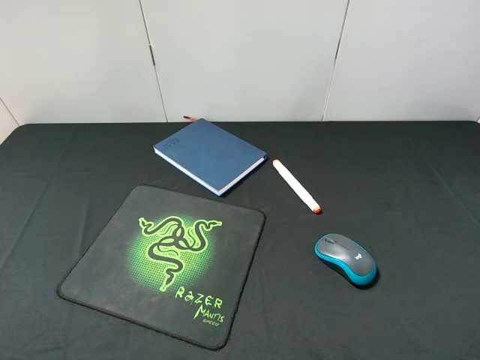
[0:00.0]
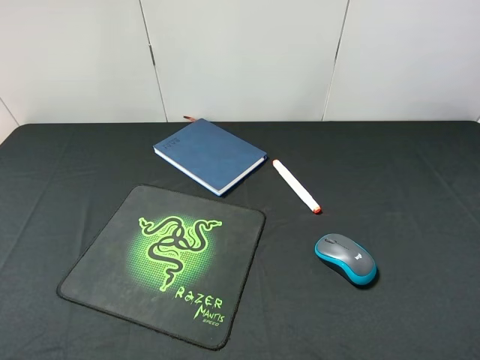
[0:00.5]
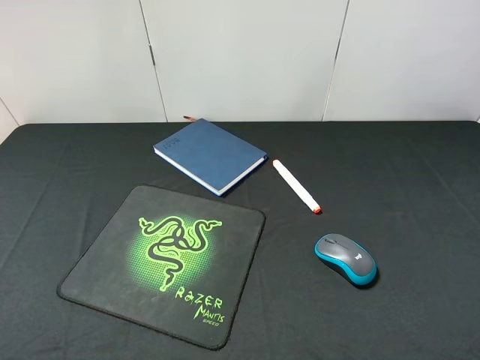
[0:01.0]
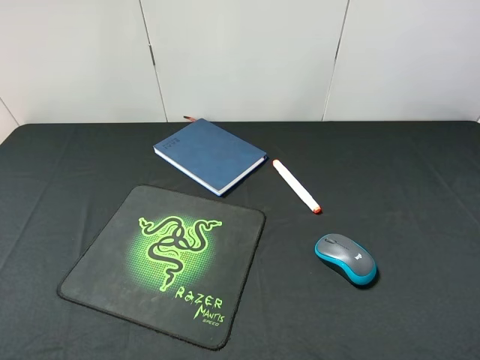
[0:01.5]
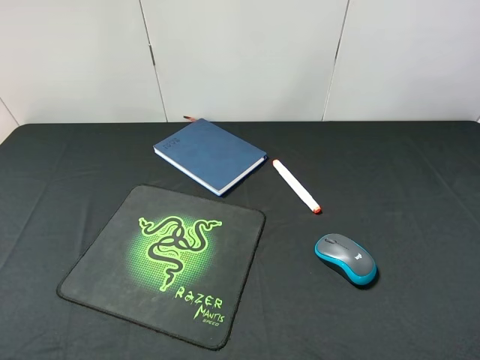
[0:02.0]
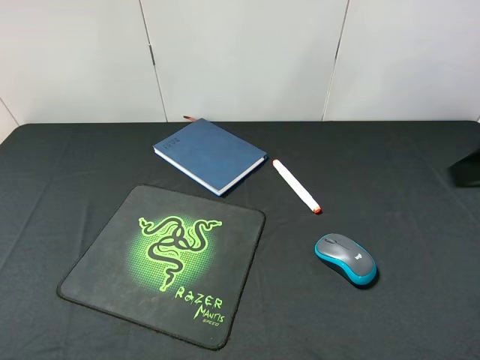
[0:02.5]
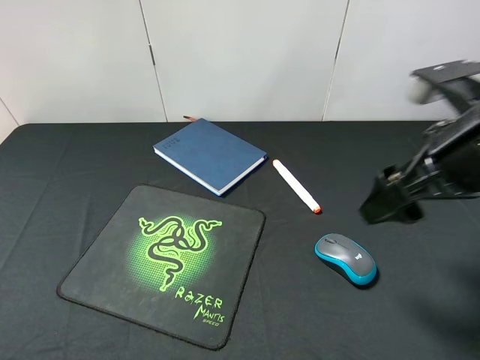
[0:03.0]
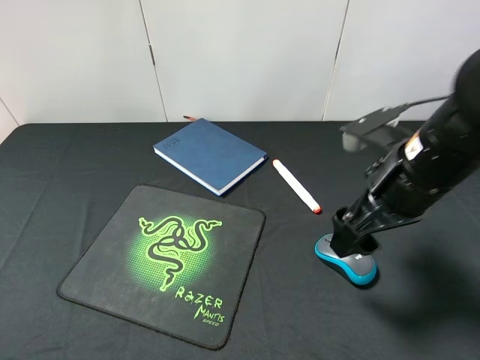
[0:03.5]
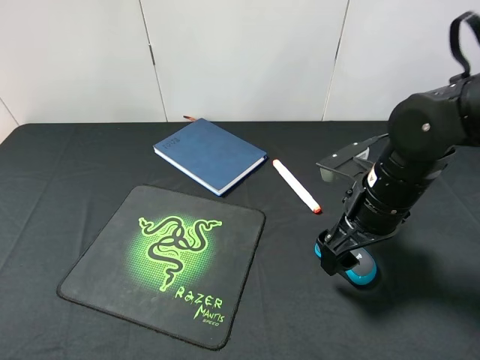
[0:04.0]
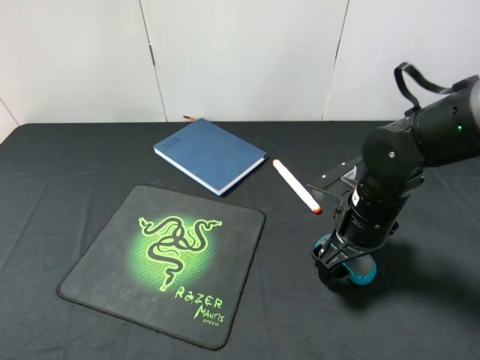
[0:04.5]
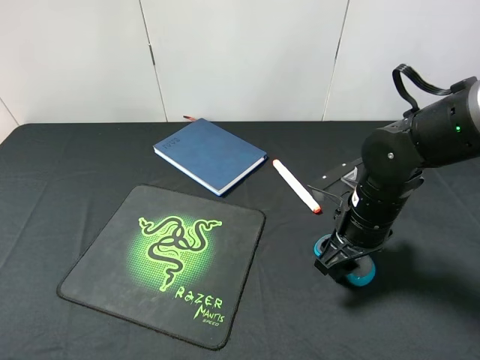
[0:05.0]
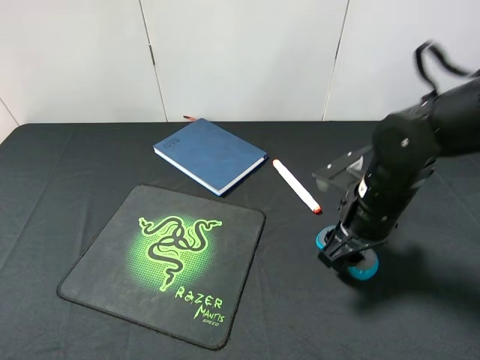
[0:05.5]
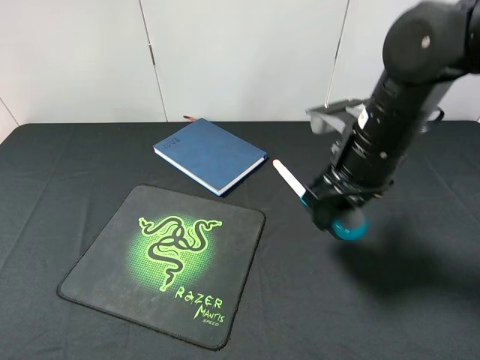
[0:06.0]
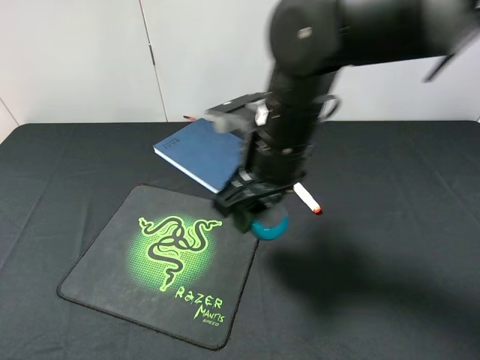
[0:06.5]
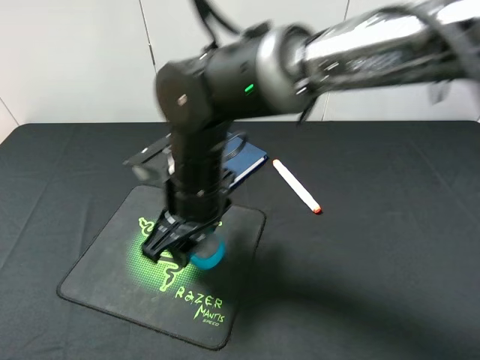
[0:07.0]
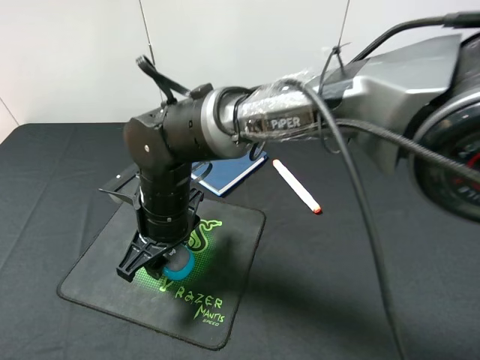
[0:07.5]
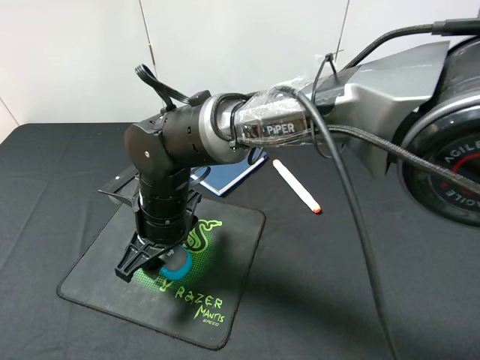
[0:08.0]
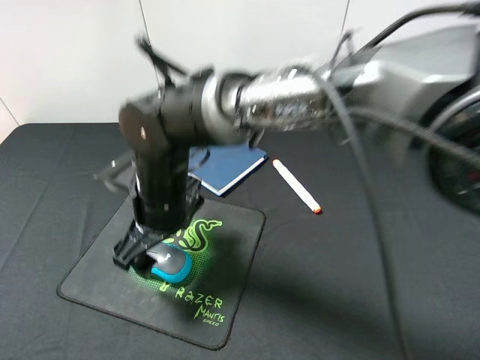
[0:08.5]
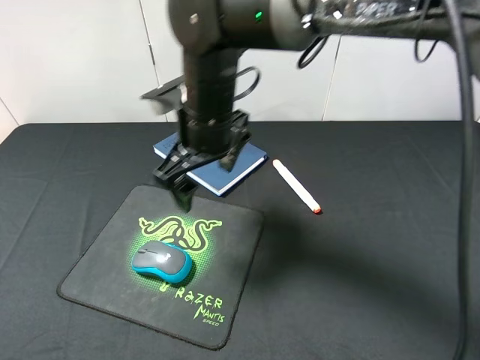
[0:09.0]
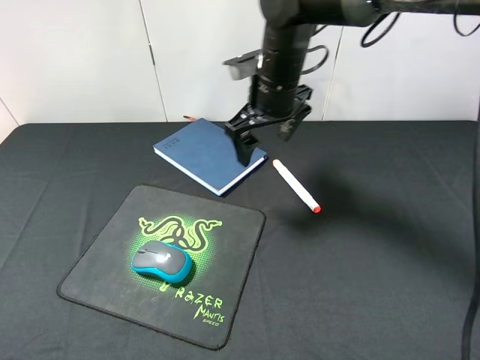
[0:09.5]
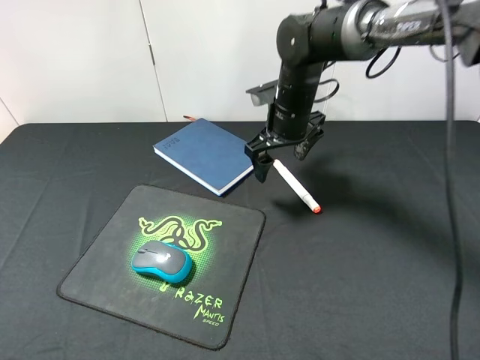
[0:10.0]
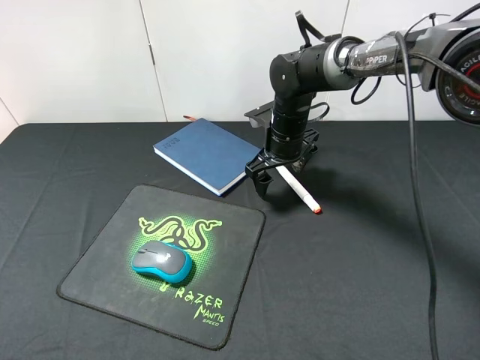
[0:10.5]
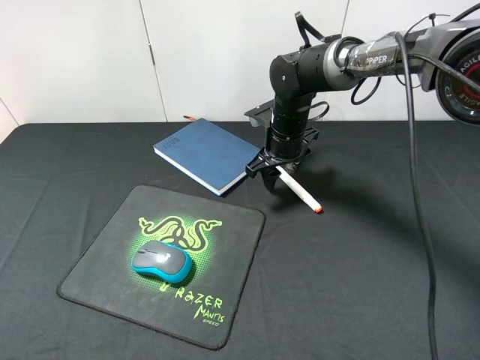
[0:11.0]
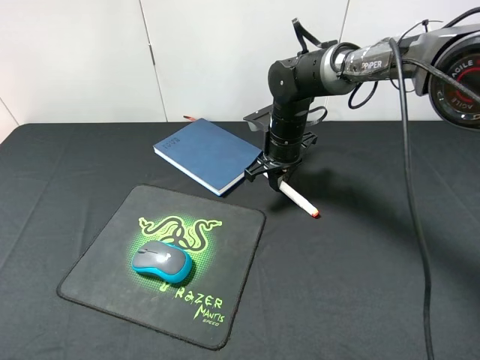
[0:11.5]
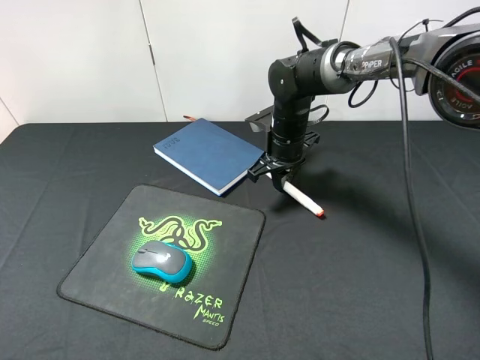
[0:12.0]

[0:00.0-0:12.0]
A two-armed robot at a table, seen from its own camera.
Step, 0:00.0 to 0:05.5: Pick up the mouse with right gripper.
Step, 0:06.0 to 0:08.5: Place the mouse on the mouse pad with right gripper.
0:02.0 to 0:04.0: The right gripper moves downward, forward and to the left, some 30 cm.
0:04.0 to 0:06.0: The right gripper moves upward, some 5 cm, and closes up.
0:06.0 to 0:08.0: The right gripper heads to the left and downward, covering some 25 cm.
0:08.0 to 0:10.0: The right gripper heads to the right and forward, covering some 25 cm.
0:10.0 to 0:12.0: The right gripper closes.

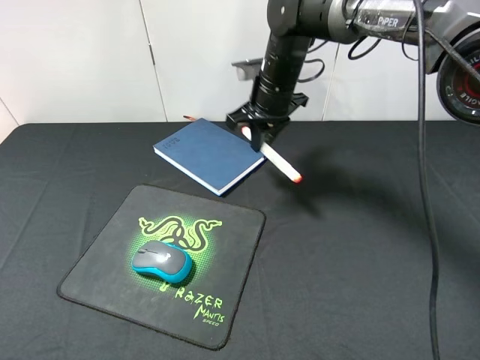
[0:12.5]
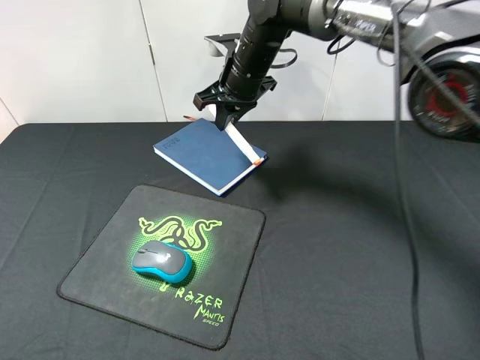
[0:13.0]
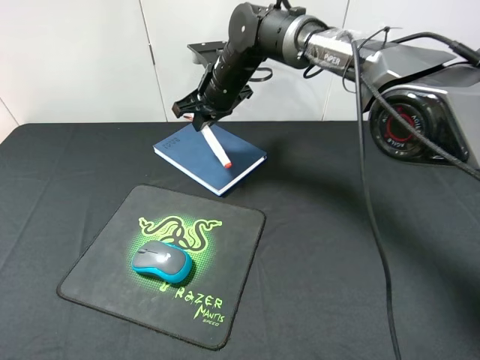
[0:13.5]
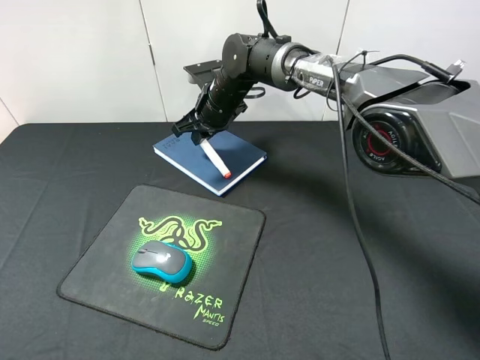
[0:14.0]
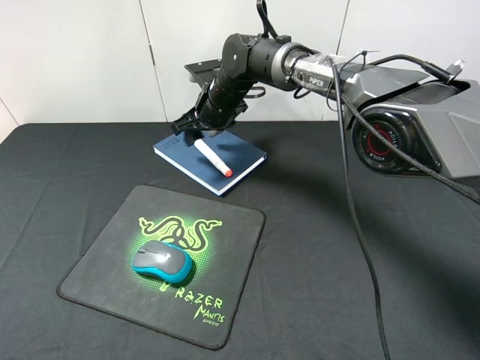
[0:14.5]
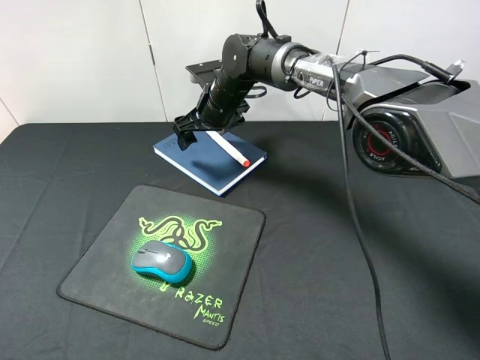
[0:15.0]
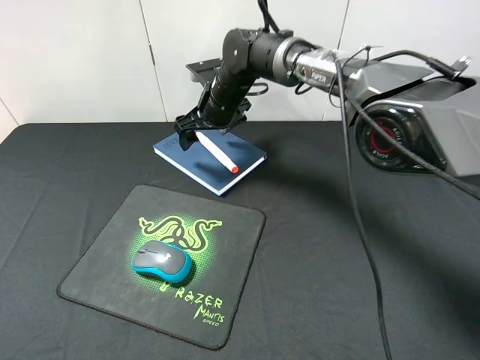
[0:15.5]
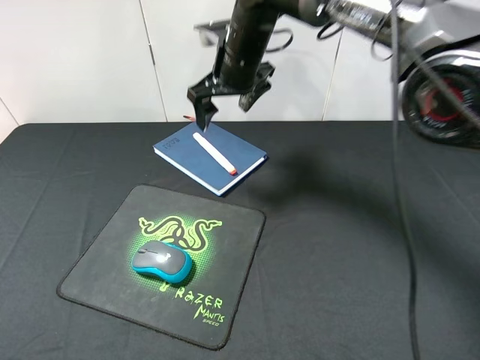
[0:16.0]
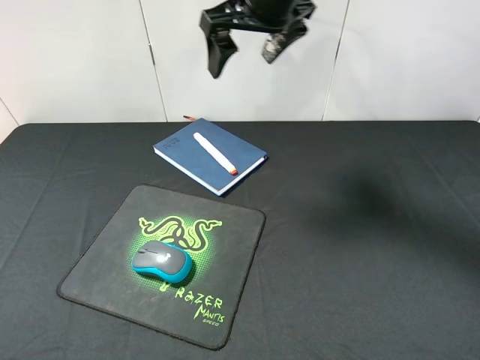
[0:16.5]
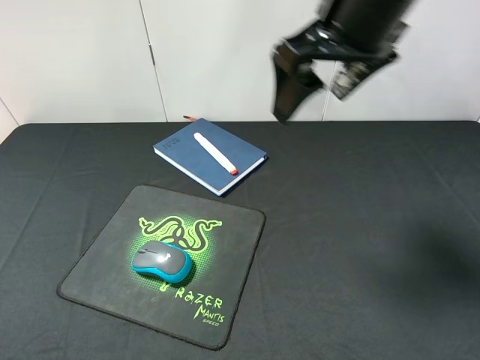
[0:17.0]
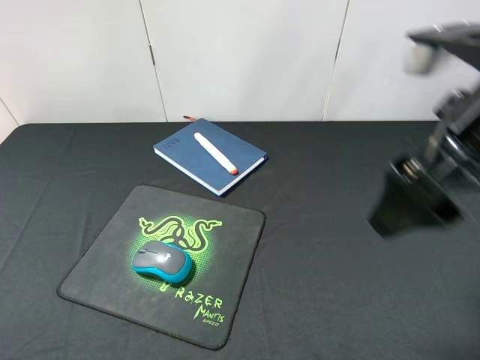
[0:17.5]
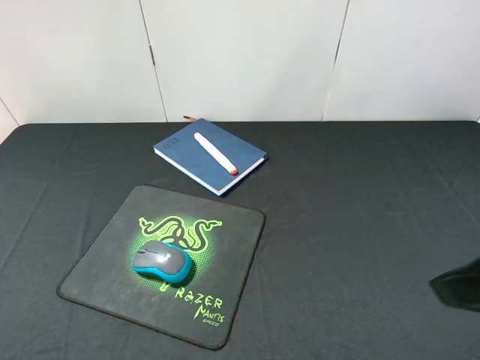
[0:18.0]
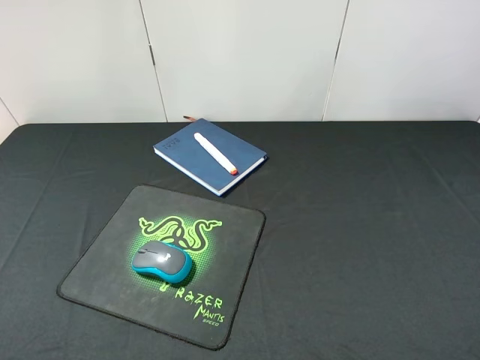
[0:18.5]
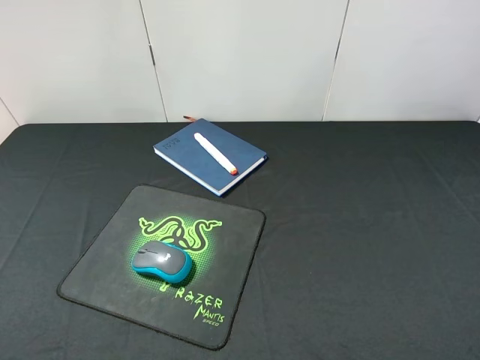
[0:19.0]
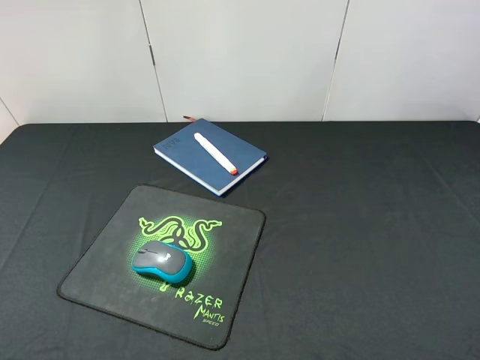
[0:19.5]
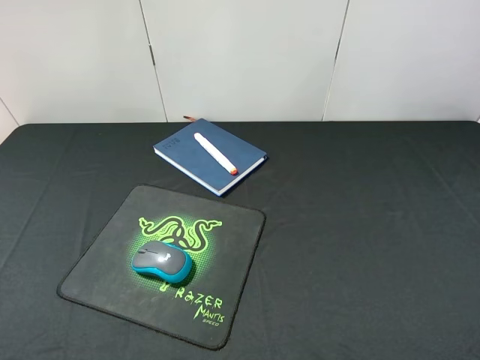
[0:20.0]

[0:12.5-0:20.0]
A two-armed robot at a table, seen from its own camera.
Step, 0:12.5 to 0:15.0: Place the marker pen on the notebook with right gripper.
0:12.5 to 0:14.5: The right gripper is displaced to the left and downward by some 10 cm, and opens.
0:14.5 to 0:16.5: The right gripper is displaced upward and backward by about 20 cm.
0:16.5 to 0:18.0: The right gripper goes roughly 35 cm backward and to the right.
0:18.0 to 0:20.0: The right gripper shifts approximately 10 cm backward and to the right.
